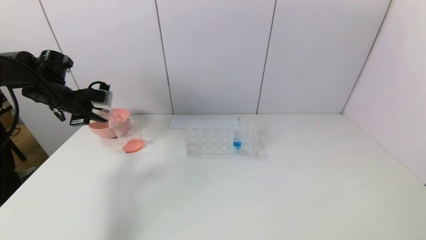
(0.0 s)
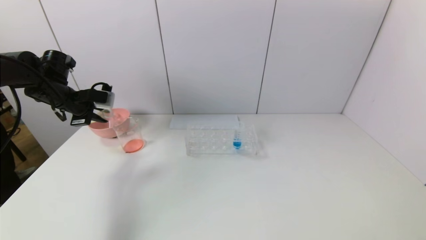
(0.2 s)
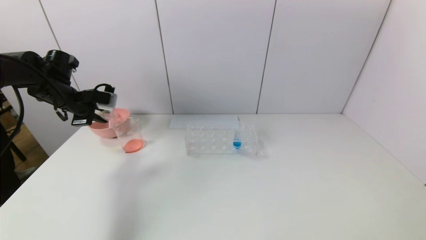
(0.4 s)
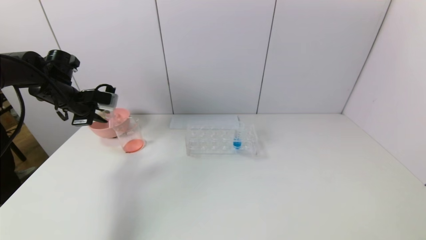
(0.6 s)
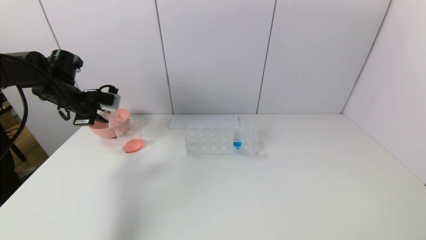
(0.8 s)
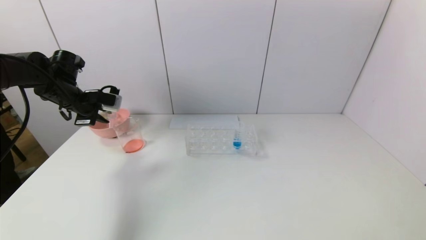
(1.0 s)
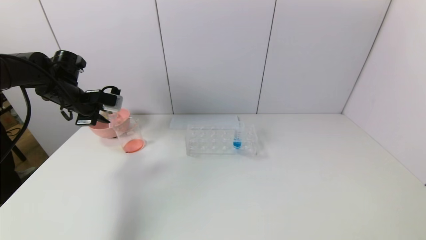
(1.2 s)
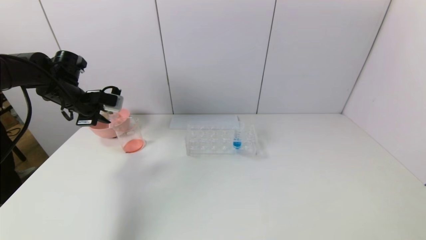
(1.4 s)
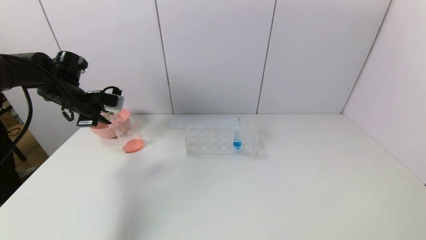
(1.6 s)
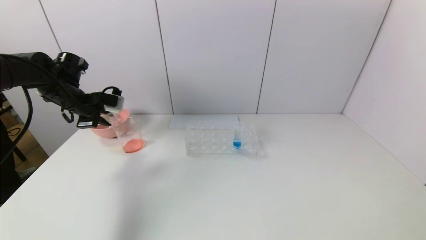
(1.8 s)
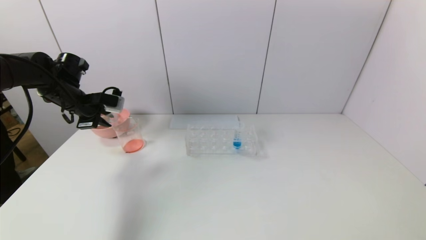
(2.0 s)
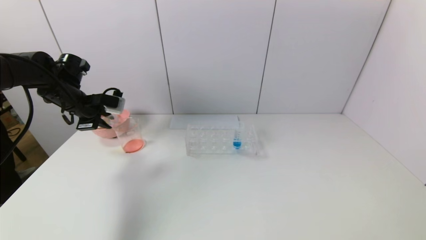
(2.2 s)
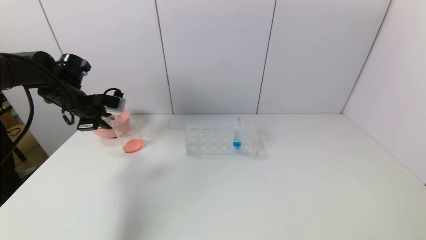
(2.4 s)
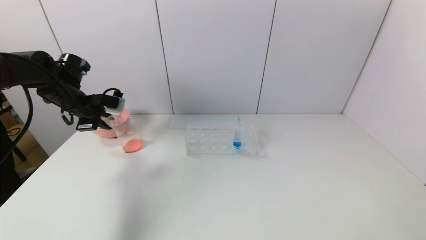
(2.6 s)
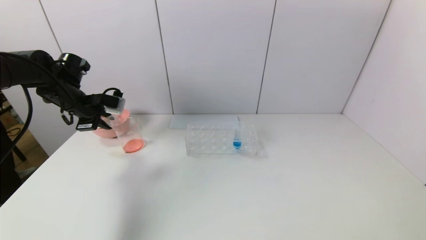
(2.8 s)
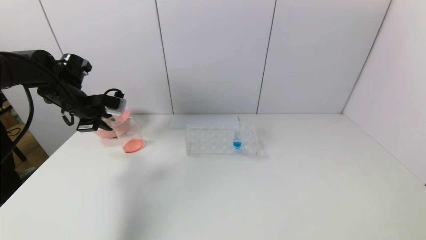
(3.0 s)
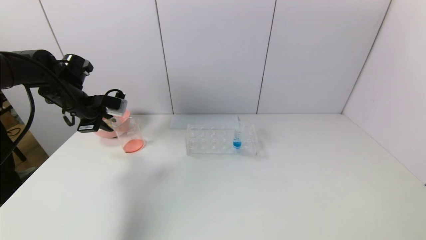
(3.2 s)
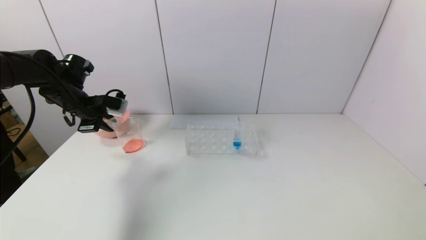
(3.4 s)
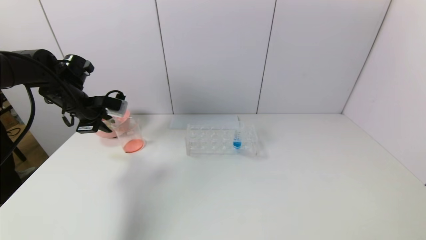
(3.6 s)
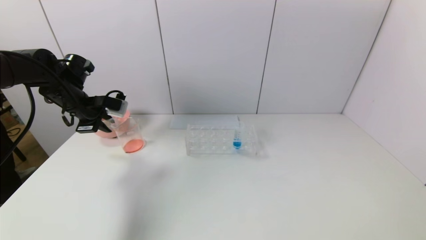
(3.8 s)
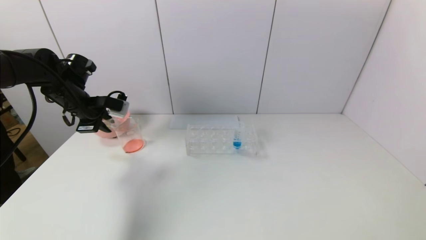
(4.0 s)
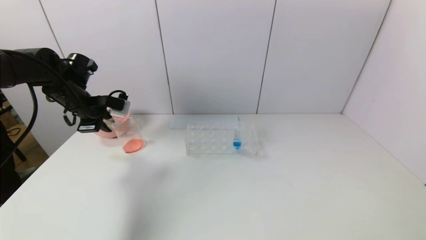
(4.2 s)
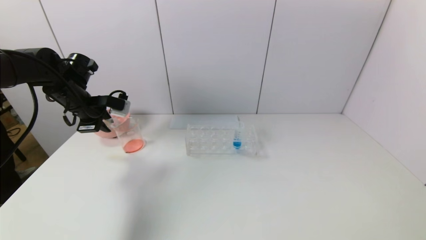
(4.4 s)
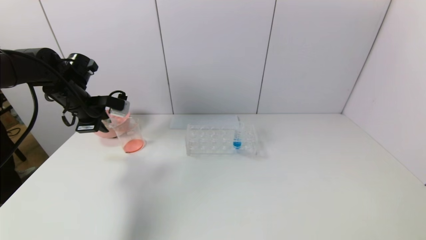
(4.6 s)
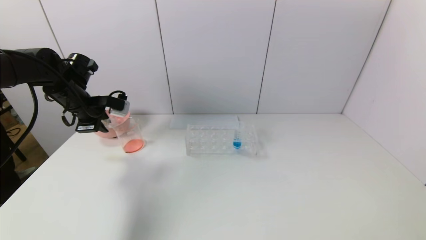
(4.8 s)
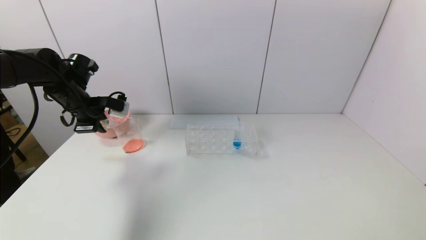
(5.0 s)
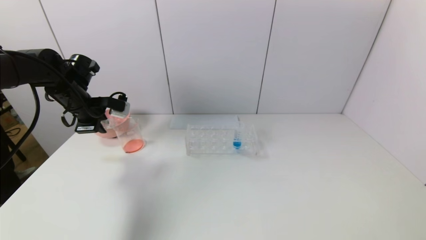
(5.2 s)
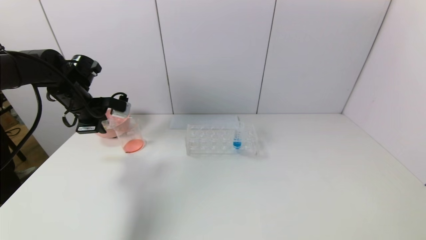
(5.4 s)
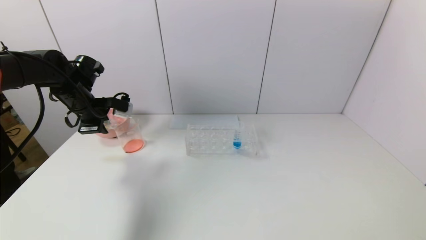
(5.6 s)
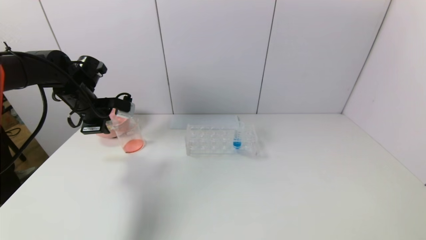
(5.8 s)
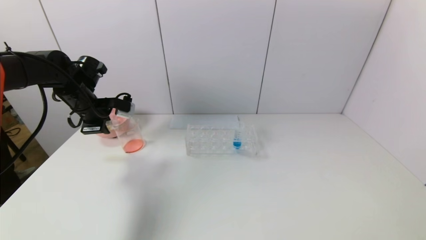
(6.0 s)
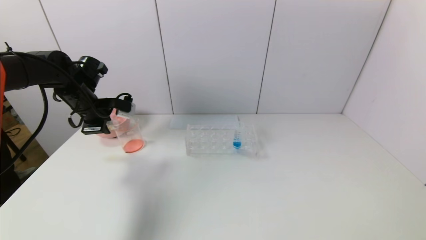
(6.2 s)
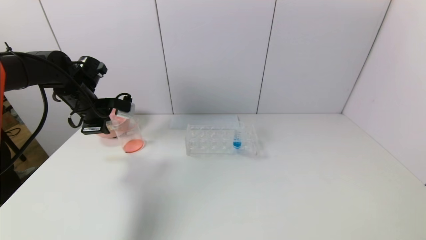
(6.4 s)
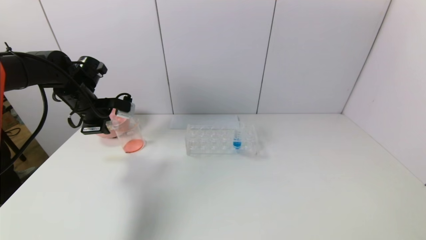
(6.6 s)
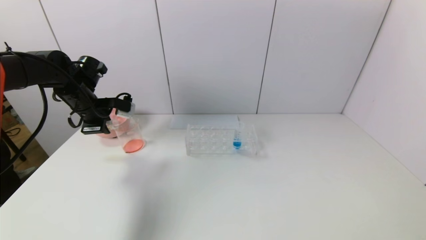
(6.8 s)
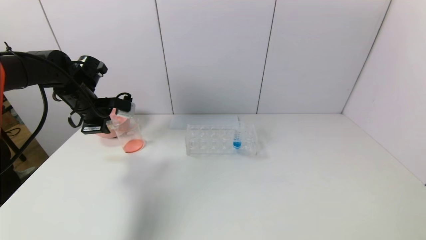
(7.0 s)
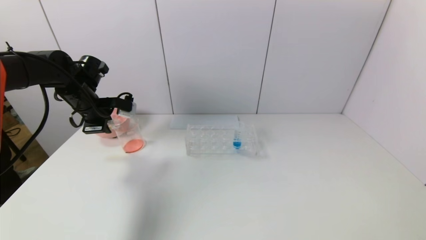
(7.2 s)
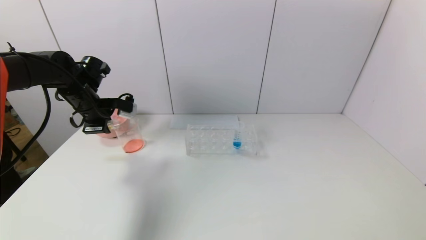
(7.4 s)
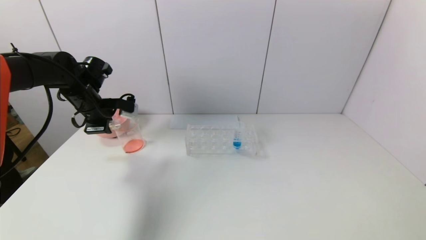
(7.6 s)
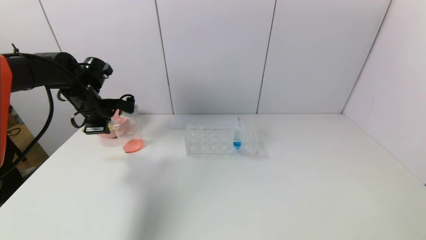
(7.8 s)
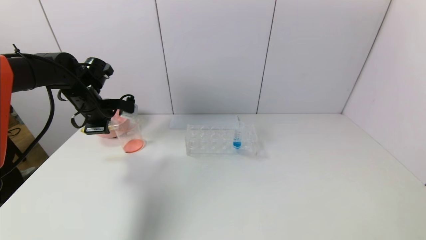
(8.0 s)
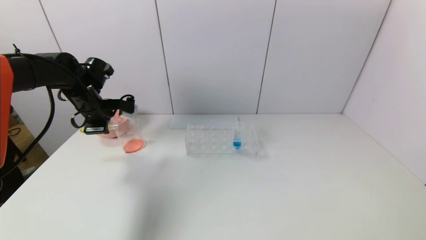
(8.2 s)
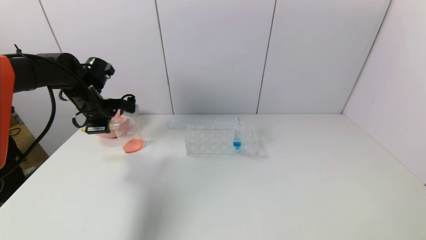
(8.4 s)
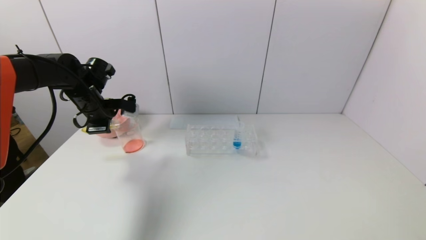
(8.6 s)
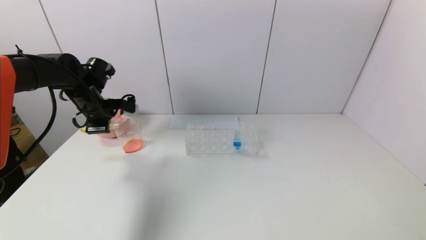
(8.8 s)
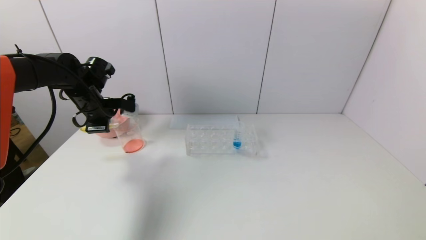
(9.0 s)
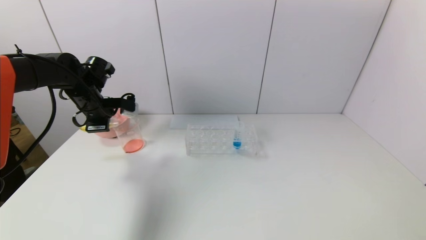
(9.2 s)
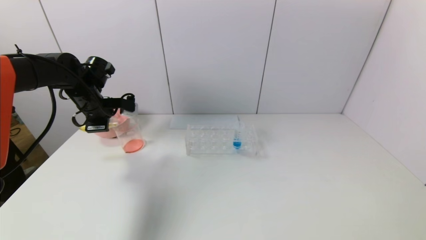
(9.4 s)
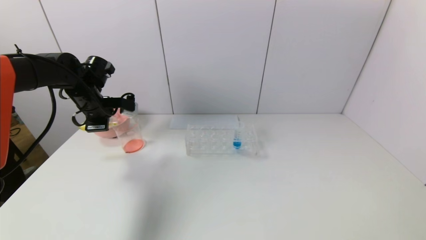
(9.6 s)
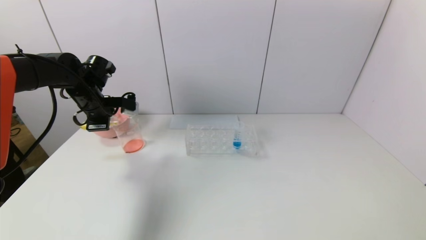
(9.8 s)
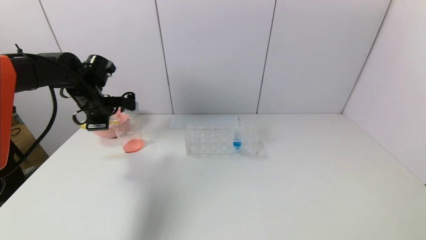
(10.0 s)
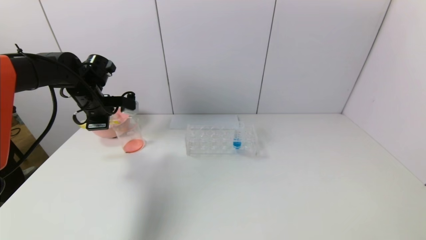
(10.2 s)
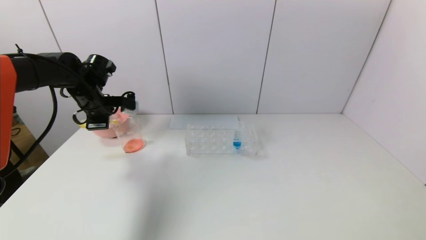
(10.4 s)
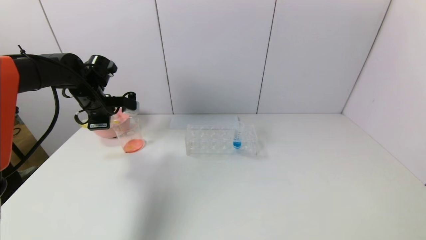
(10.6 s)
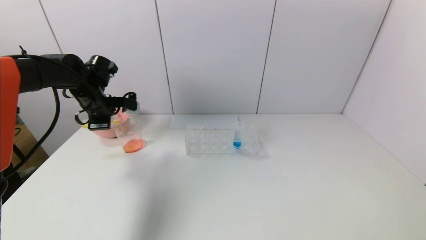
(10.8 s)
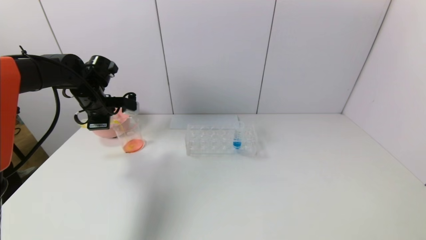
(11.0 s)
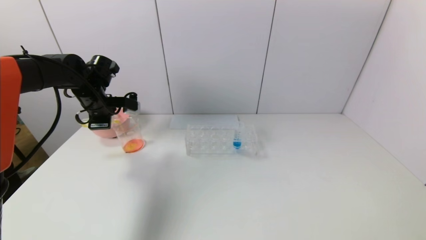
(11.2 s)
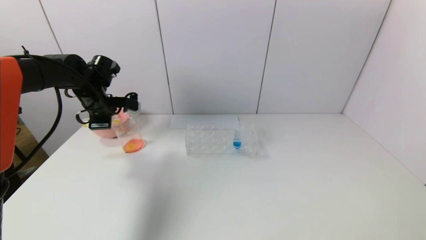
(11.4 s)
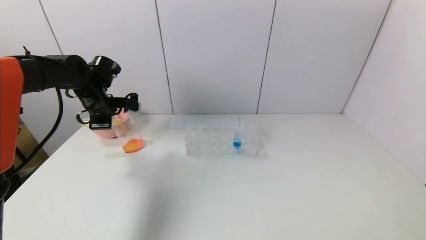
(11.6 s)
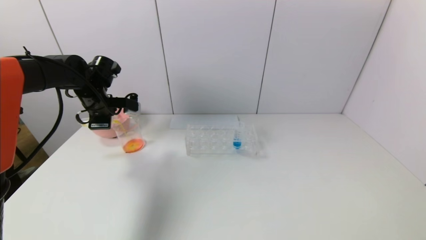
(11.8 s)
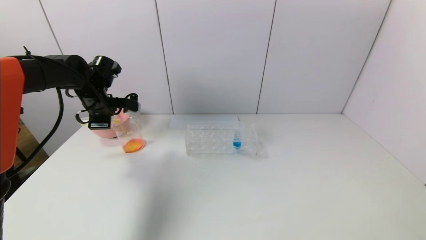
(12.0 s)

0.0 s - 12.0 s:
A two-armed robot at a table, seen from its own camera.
Task of the whole recording: pick up the test tube with yellow pigment and the test tube with red pigment by grippers and pour them into the beaker.
0.0 s - 4.4 s: There are only small adjustments of the grippers.
4.4 s - 6.0 s: The grippers move only a little.
6.0 s - 7.6 s: The two grippers keep their place.
7.6 s - 9.0 s: The grippers stay close to where they were, moving slightly.
9.0 s - 10.4 s: Both grippers stay about where they are.
10.4 s - 12.0 s: Both grippers stay put.

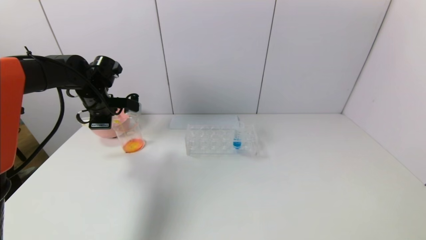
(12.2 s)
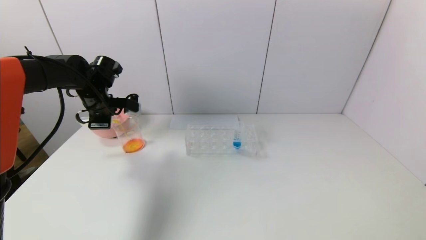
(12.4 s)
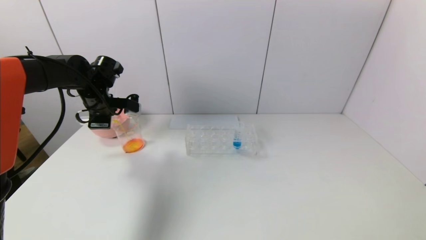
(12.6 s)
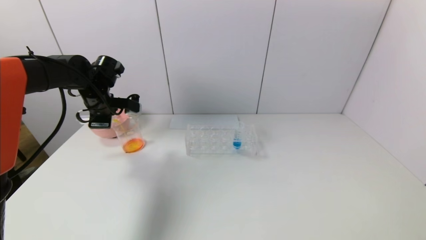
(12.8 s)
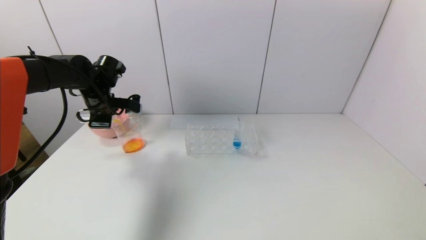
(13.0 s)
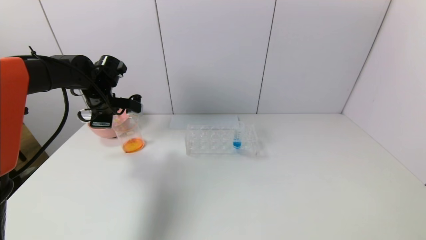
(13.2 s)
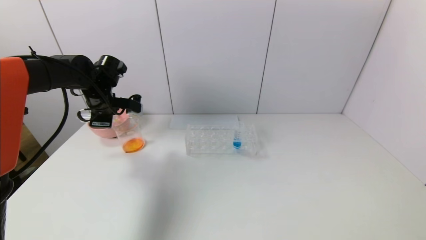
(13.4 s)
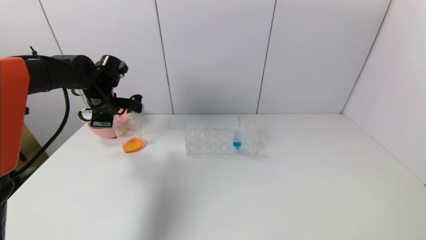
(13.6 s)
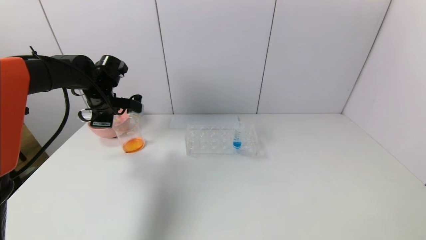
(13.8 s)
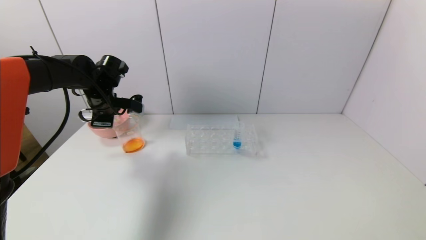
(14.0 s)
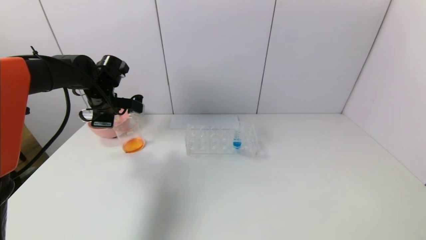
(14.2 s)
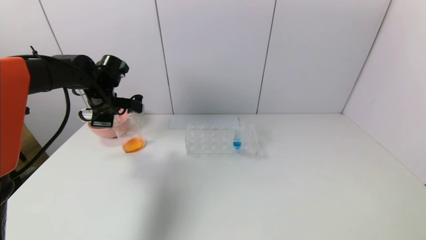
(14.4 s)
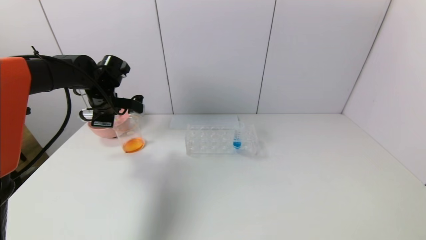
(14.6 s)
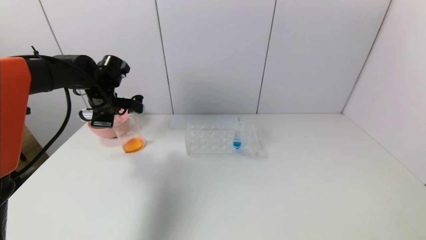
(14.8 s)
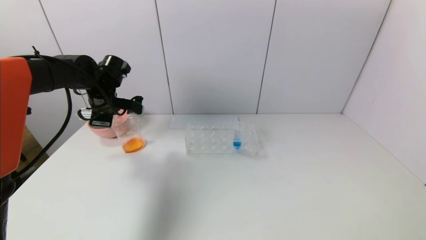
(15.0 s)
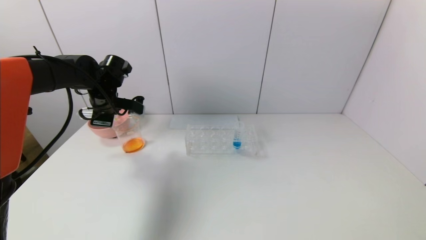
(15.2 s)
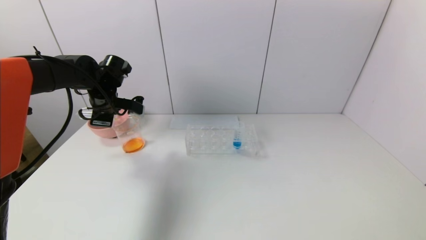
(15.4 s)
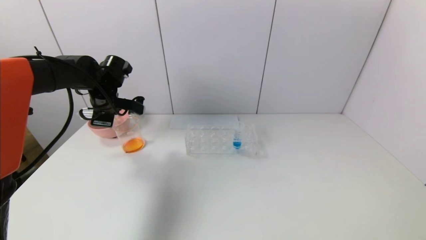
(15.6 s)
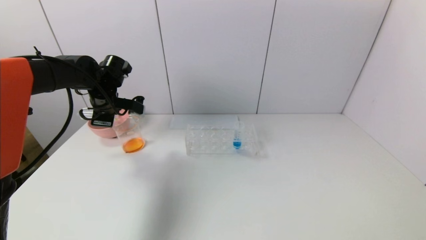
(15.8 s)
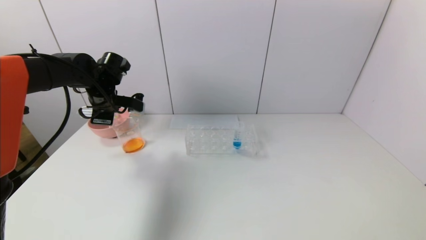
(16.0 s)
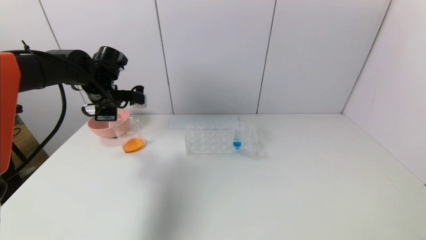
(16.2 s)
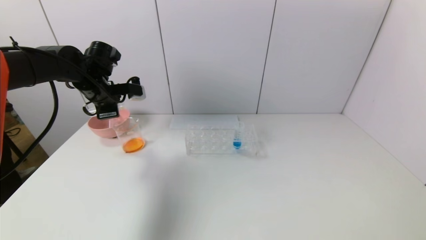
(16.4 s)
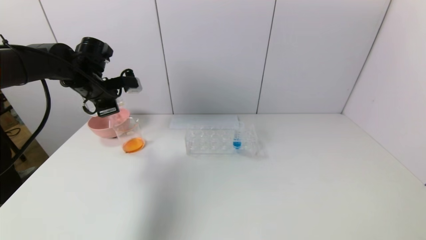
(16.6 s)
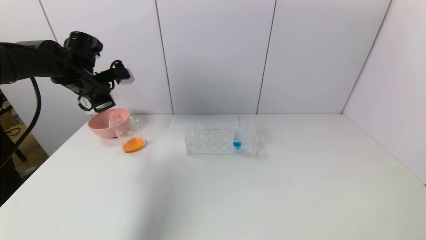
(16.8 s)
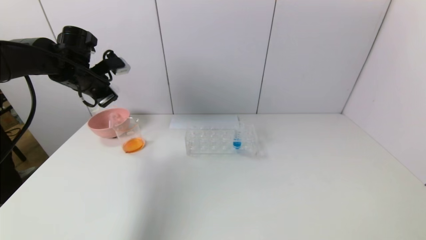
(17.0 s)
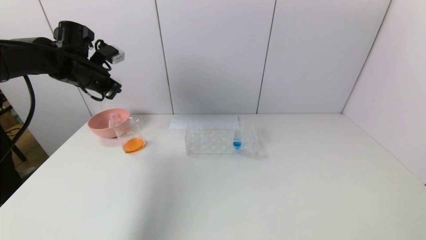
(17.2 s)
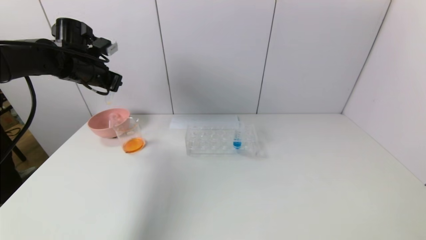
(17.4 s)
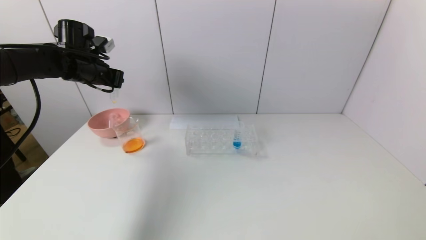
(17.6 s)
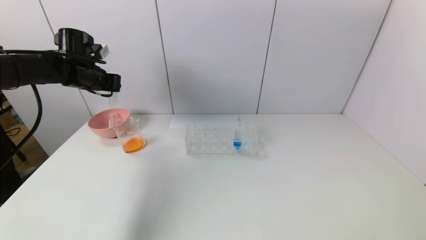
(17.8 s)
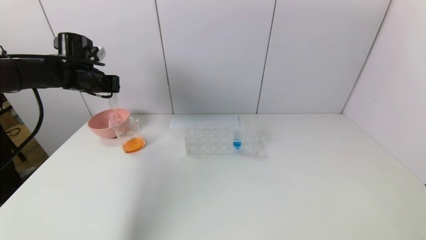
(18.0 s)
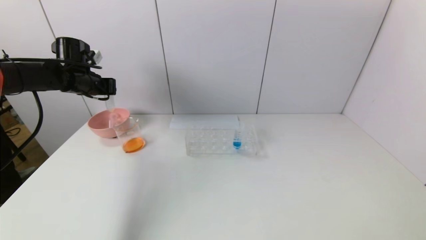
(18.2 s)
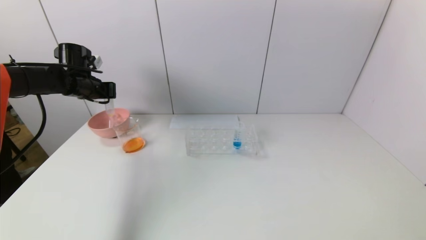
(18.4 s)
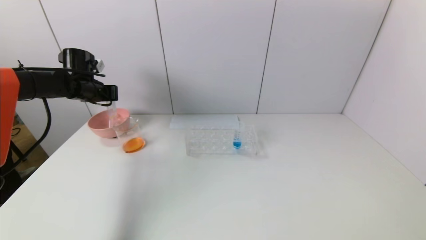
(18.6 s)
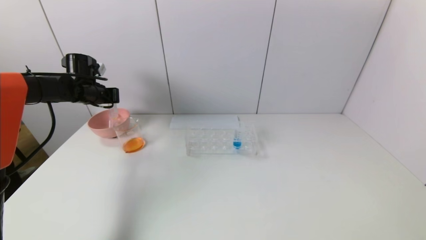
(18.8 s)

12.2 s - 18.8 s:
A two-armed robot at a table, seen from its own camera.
Task of the whole recording: pick up the test tube with yellow pigment and the test tube with red pigment by grippers and pour them into the beaker.
Step, 12.2 s - 14.2 s: Pour the yellow reagent into the graduated cylinder with the left gripper.
12.2 s - 13.8 s: There are only small adjustments of the grippers.
13.8 s - 15.4 s: Both grippers stay about where they are.
15.4 s - 17.2 s: The left gripper shifts roughly 5 cm upward.
17.2 s - 18.8 s: The left gripper shifts about 10 cm downward and forward.
